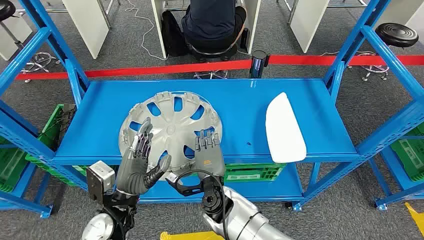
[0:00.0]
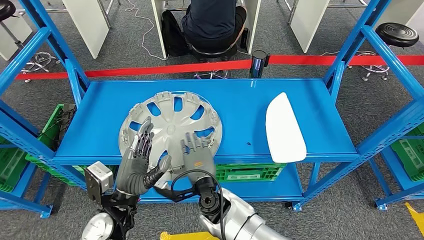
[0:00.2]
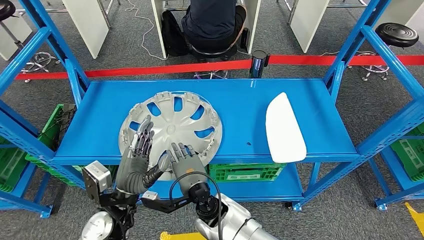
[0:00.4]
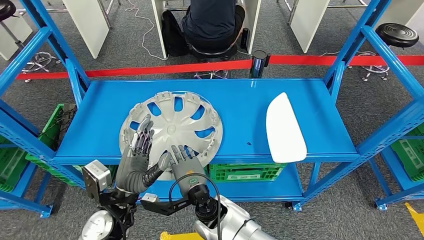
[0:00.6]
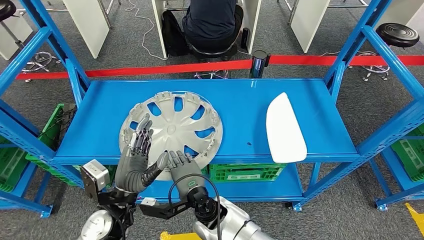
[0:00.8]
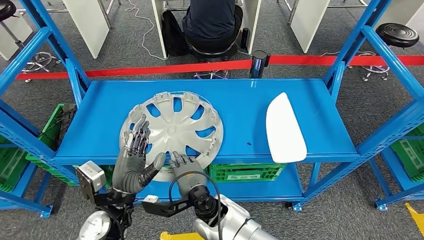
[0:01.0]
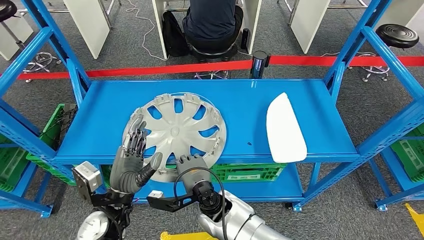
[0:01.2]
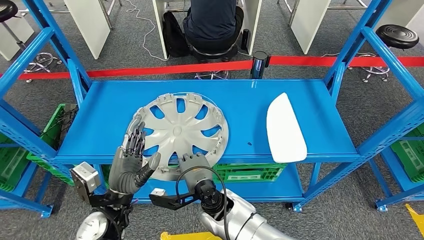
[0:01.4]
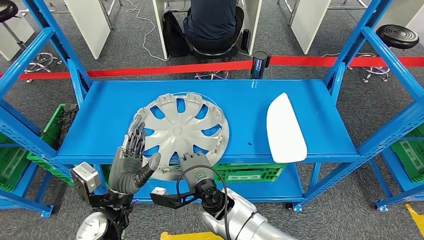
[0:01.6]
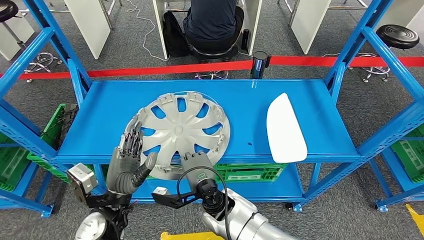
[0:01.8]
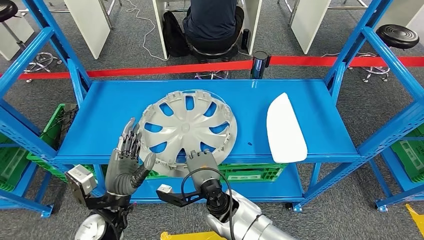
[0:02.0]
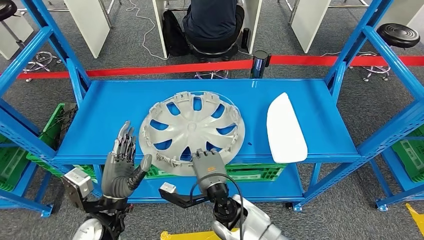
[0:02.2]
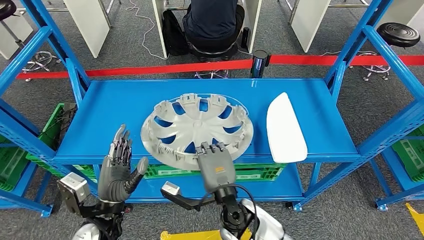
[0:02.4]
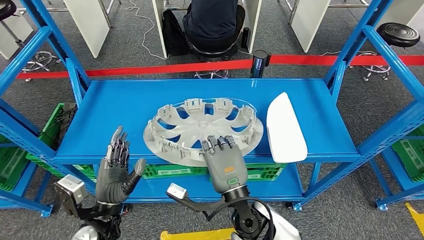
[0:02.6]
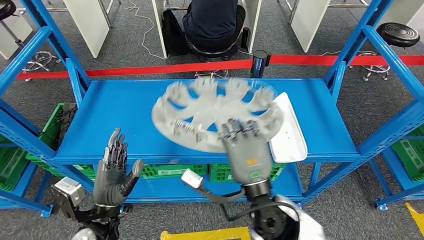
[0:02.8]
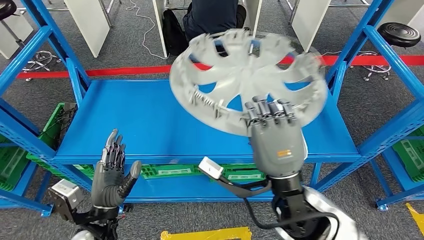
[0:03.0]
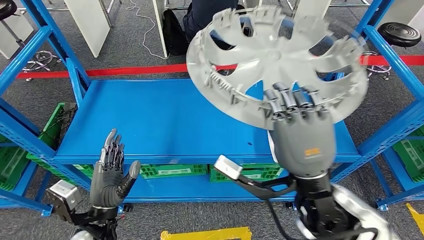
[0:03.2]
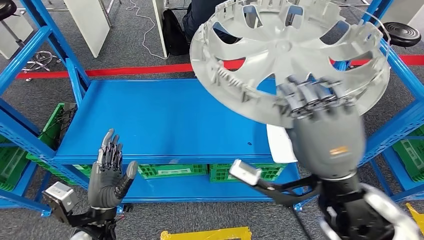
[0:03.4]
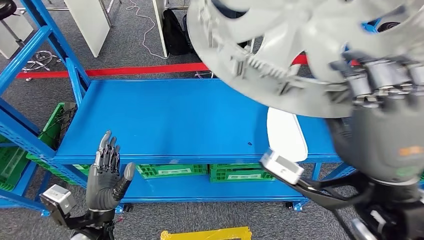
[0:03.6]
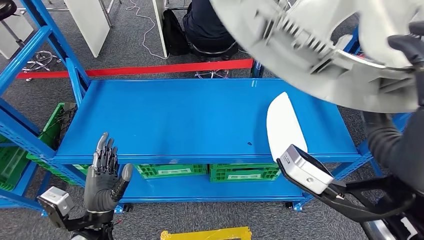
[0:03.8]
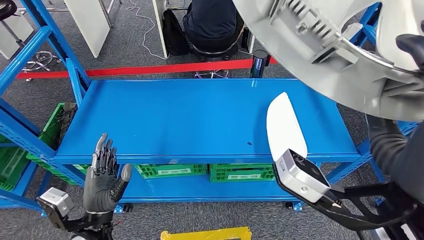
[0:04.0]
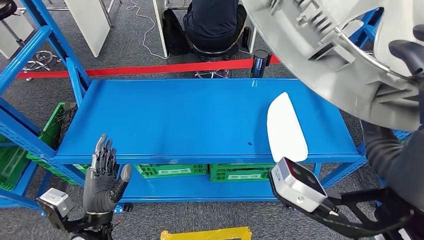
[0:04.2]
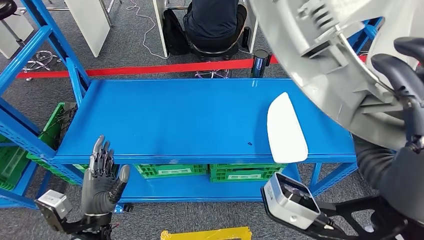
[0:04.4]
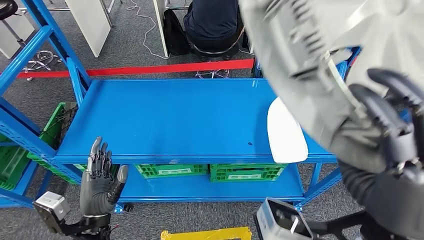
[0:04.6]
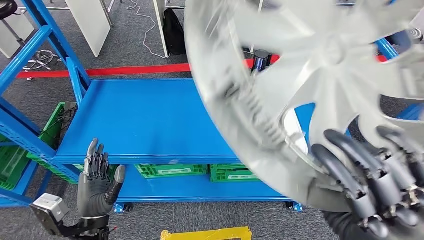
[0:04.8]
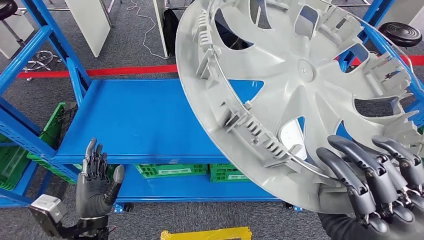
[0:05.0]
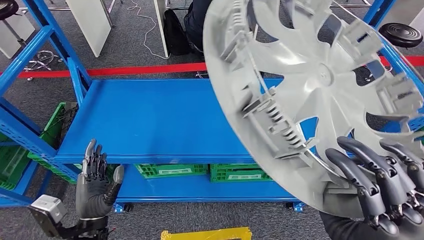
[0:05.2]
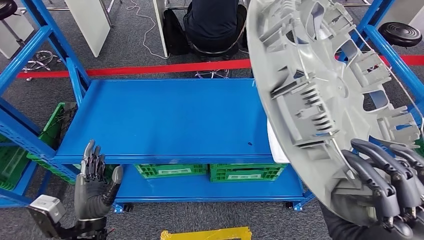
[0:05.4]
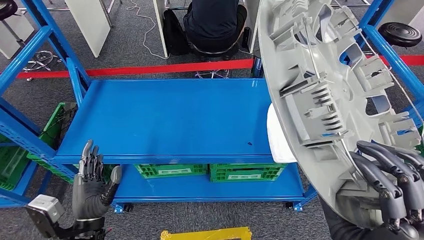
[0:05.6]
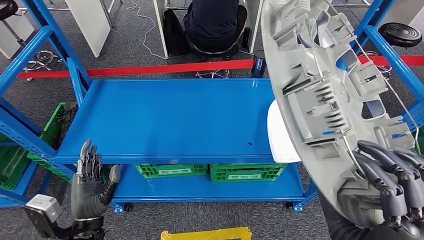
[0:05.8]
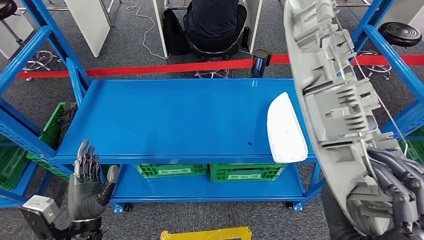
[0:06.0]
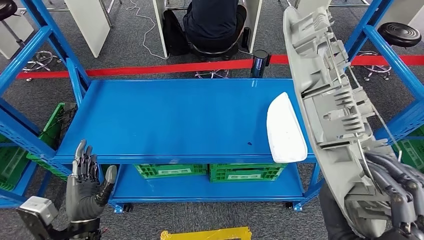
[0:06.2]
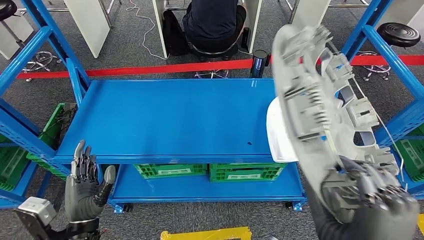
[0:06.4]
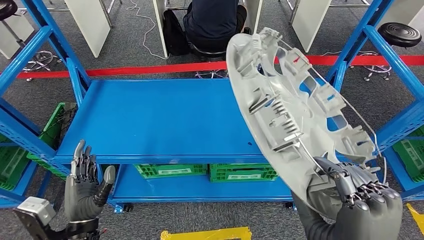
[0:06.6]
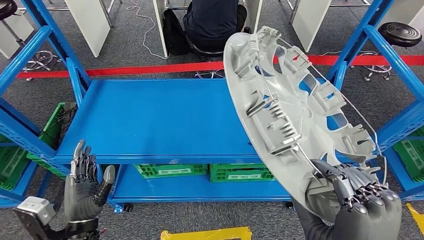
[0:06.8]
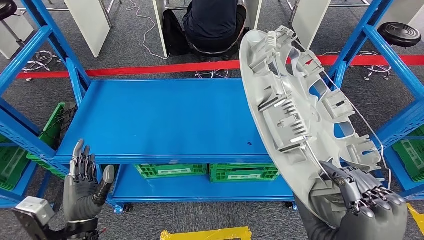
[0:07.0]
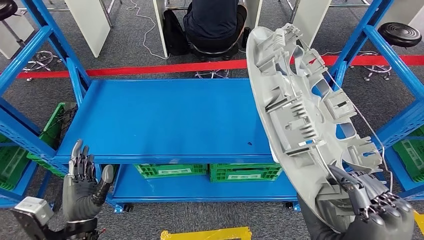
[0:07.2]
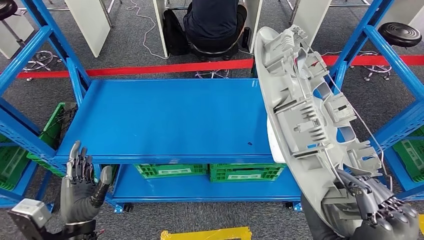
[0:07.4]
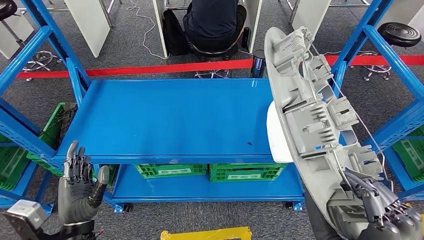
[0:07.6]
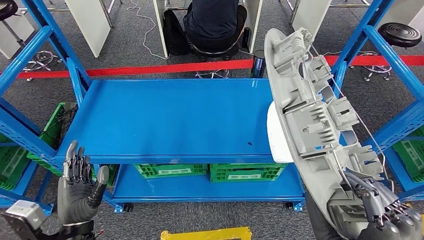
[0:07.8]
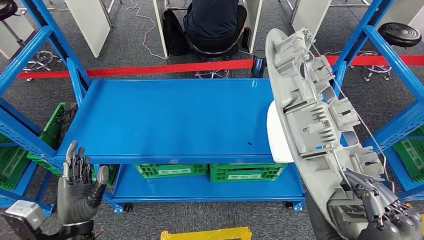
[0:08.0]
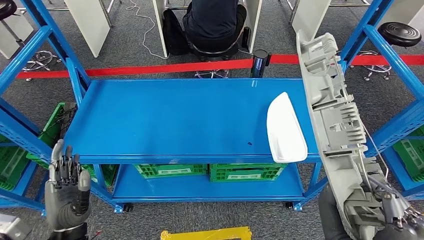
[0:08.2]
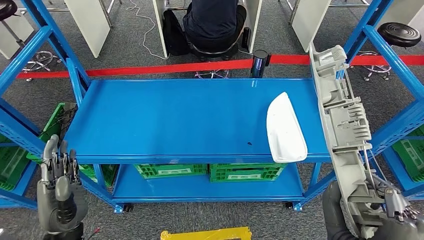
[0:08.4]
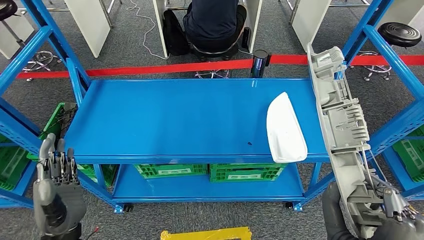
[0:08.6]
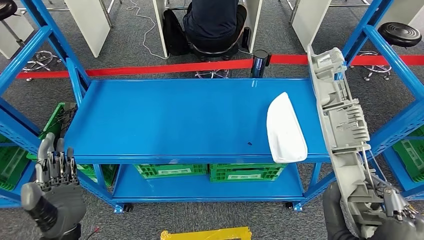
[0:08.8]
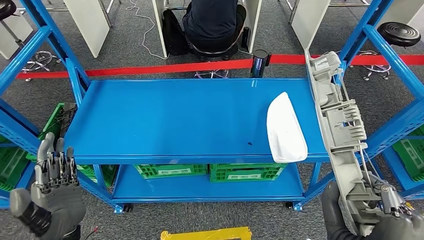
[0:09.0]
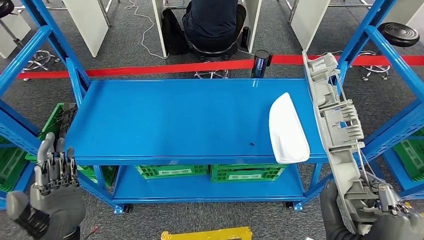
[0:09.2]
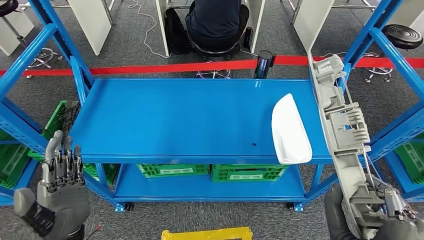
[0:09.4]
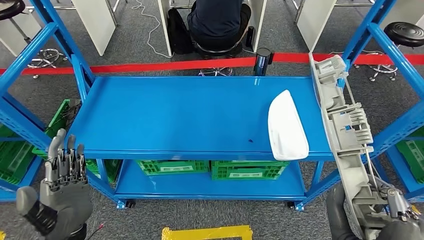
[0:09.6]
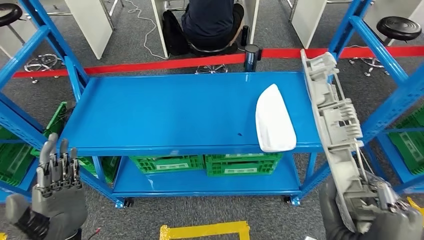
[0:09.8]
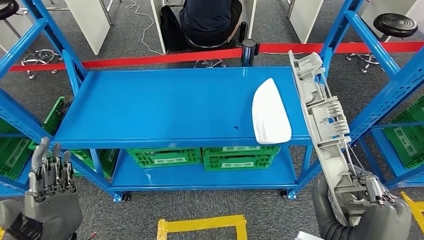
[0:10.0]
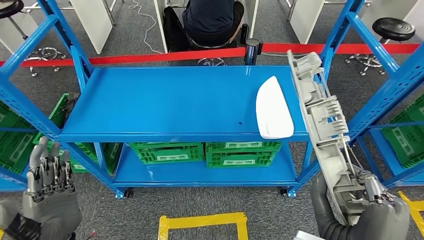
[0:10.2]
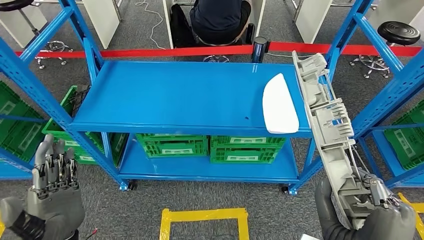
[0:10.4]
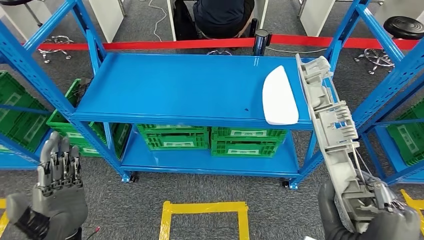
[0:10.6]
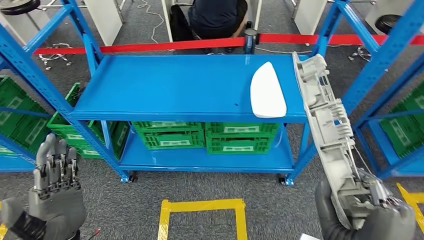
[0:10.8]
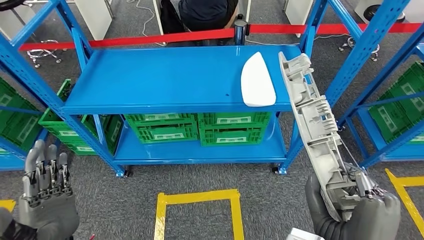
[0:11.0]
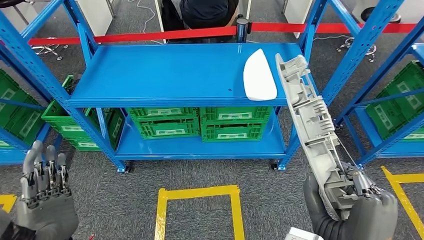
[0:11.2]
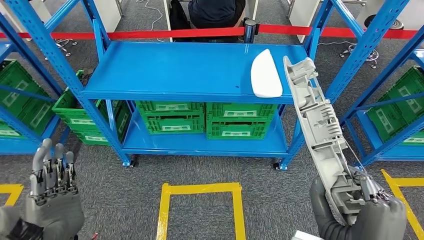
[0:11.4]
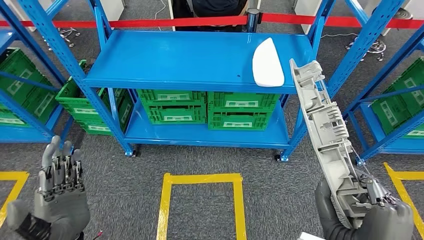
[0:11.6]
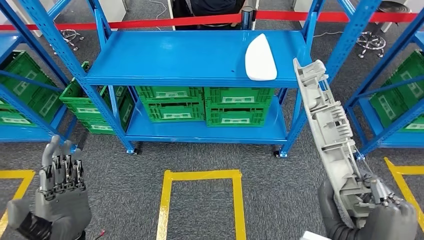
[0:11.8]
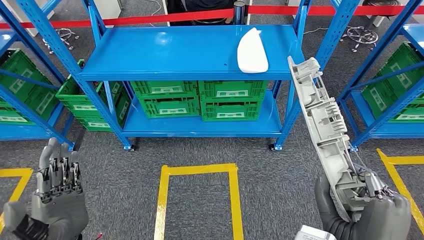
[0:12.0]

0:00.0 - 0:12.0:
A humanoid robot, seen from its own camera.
Step, 0:00.0 - 0:02.8: Take small components from the rack.

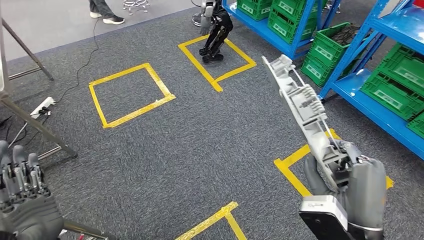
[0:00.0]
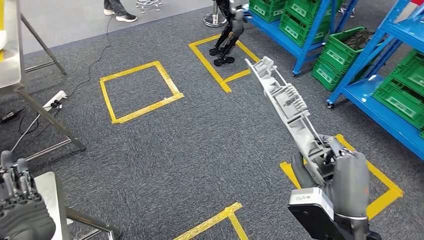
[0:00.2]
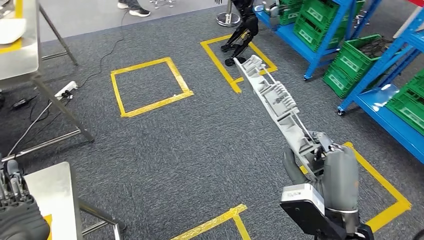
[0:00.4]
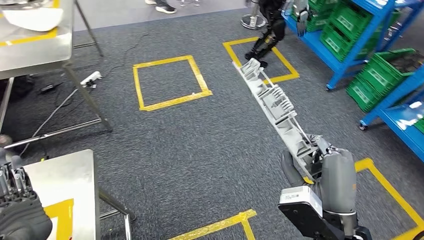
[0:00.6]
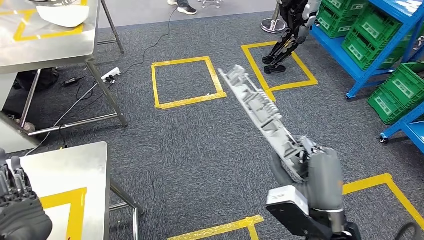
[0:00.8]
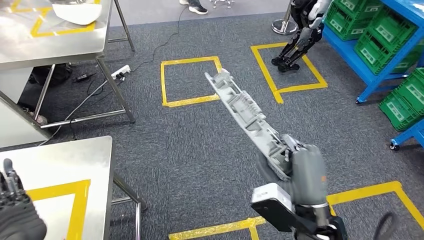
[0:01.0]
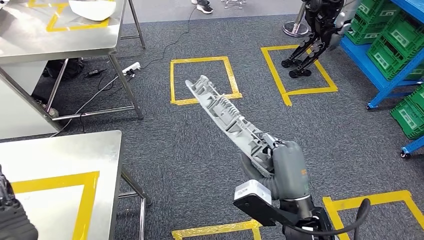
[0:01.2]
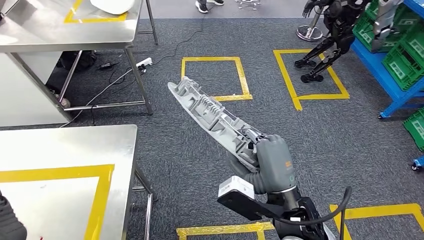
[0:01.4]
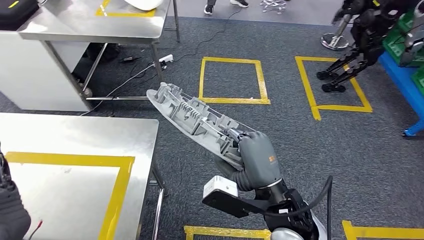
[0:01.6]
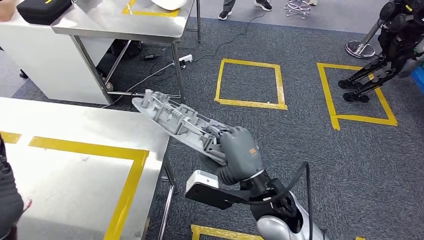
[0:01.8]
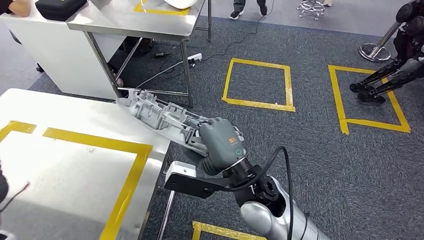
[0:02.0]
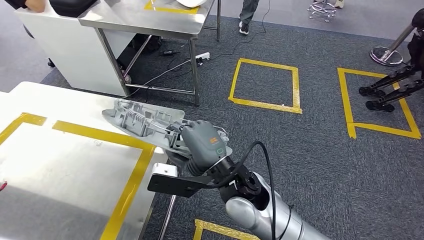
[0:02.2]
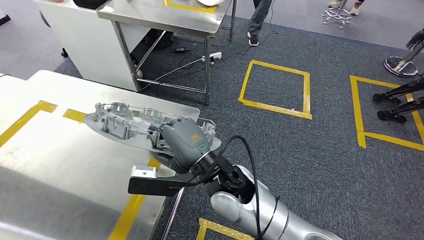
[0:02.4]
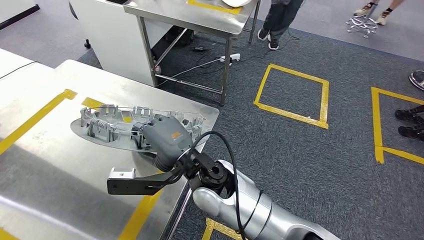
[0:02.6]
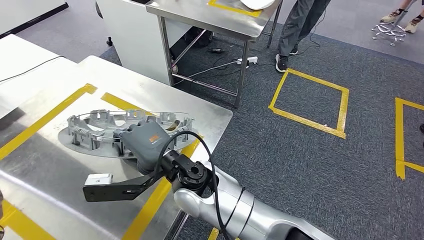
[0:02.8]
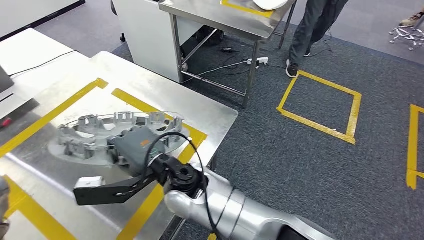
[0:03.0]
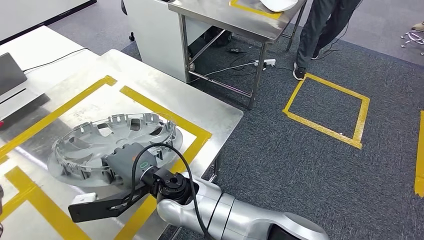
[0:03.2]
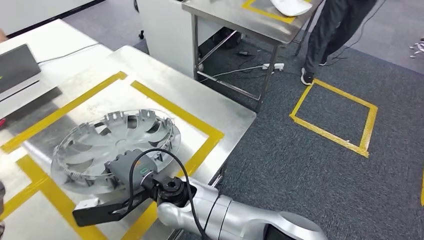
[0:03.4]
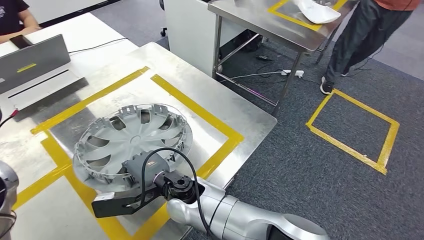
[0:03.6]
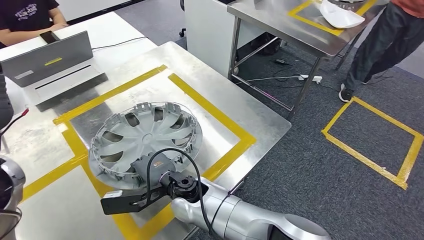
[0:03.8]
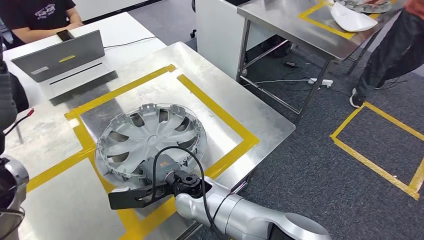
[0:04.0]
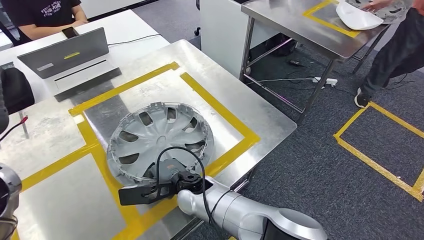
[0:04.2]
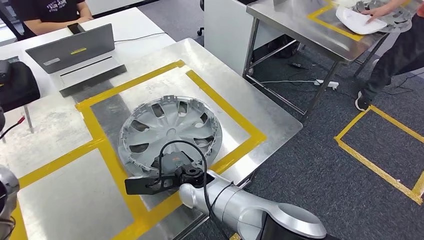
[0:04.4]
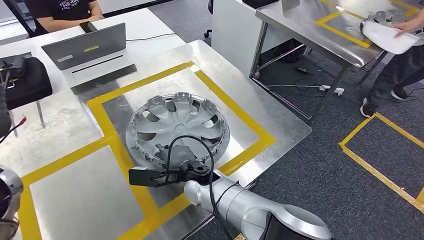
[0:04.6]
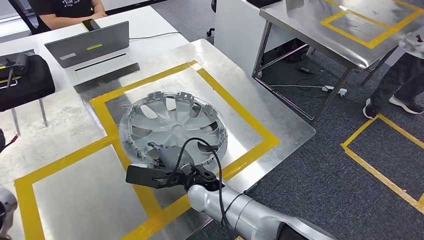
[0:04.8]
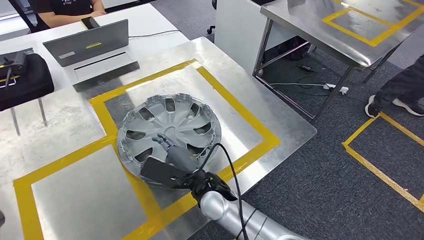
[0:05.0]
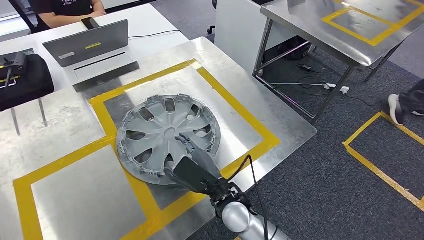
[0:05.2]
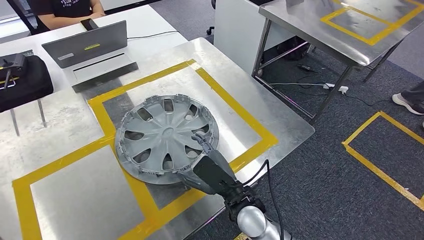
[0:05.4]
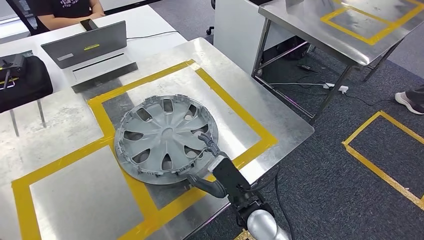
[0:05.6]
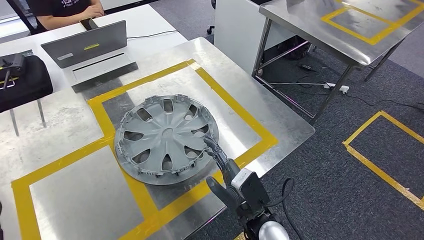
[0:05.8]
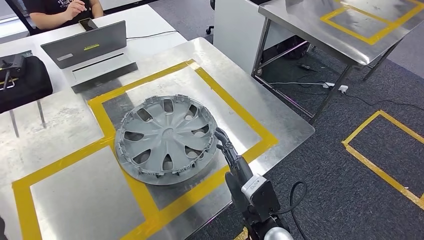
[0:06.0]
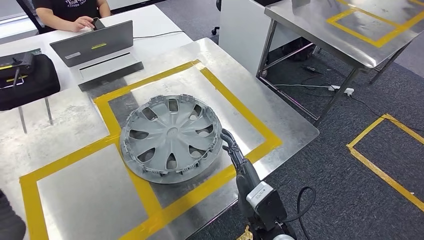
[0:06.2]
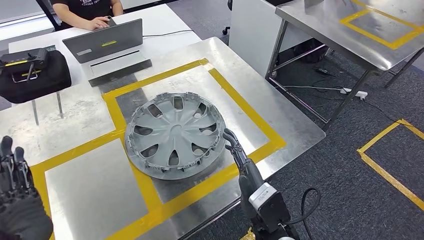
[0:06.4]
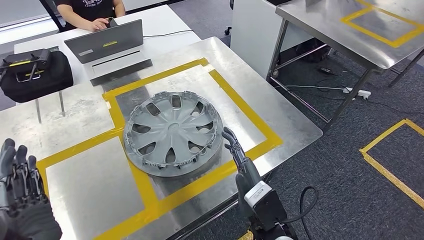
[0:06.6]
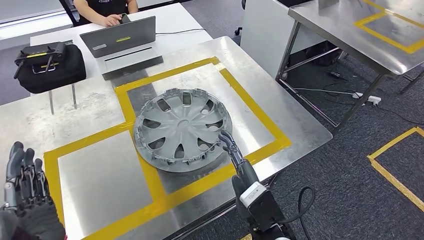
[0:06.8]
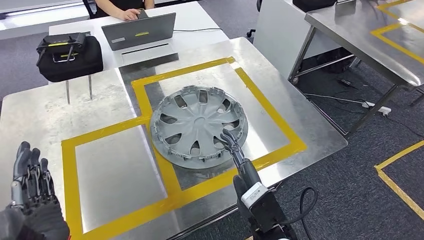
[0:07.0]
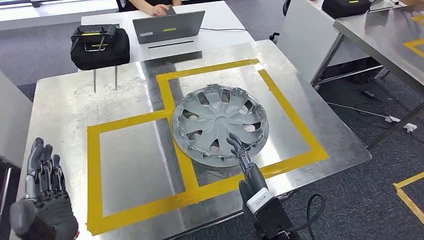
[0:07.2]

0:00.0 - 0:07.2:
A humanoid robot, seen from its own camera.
Step, 0:02.0 - 0:04.6: Insert the small parts into the corresponding holes on the workbench.
